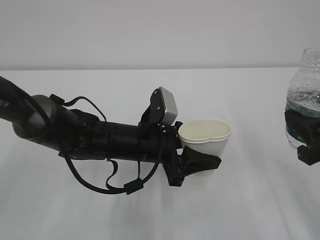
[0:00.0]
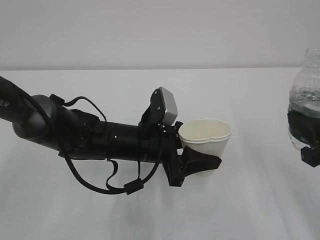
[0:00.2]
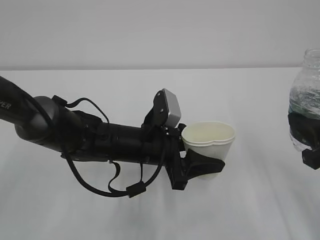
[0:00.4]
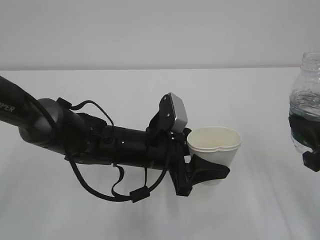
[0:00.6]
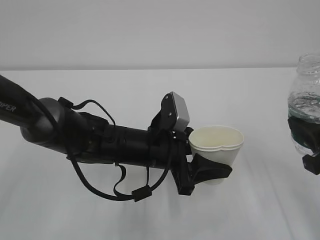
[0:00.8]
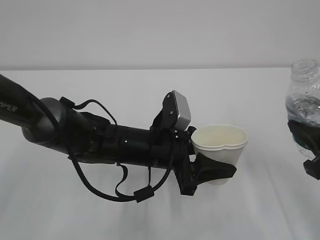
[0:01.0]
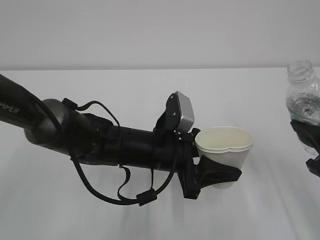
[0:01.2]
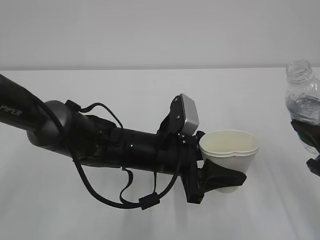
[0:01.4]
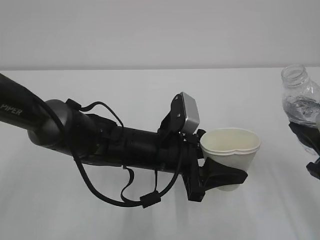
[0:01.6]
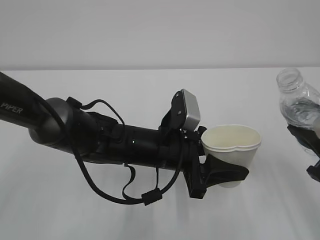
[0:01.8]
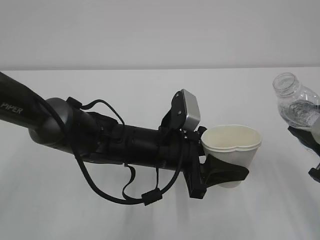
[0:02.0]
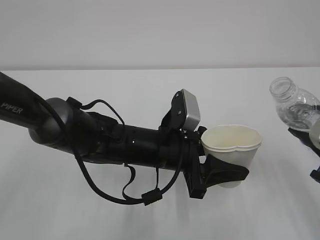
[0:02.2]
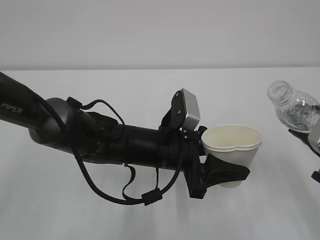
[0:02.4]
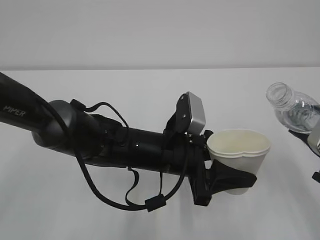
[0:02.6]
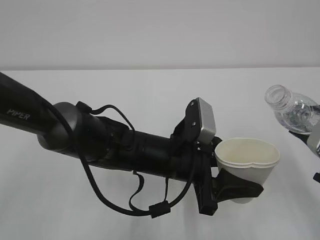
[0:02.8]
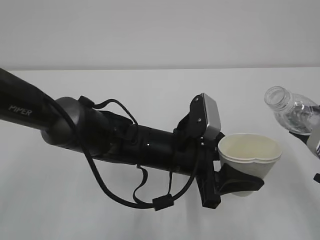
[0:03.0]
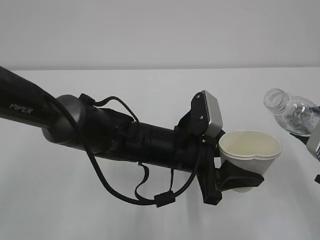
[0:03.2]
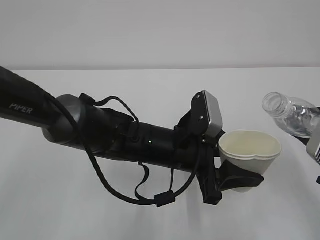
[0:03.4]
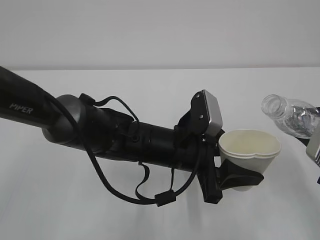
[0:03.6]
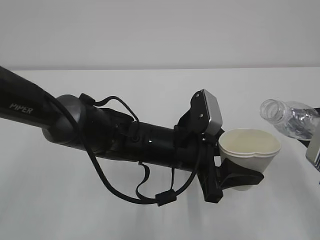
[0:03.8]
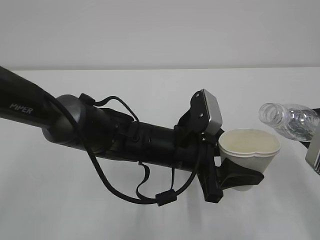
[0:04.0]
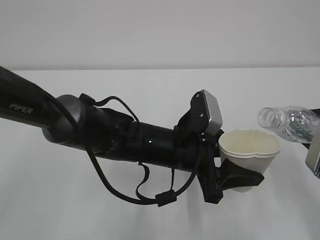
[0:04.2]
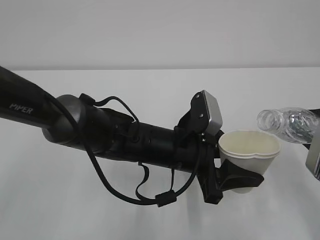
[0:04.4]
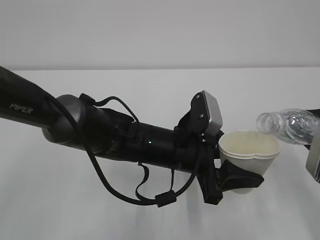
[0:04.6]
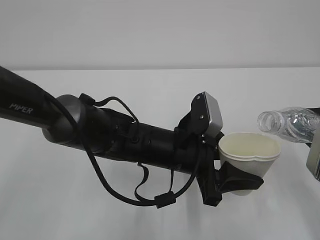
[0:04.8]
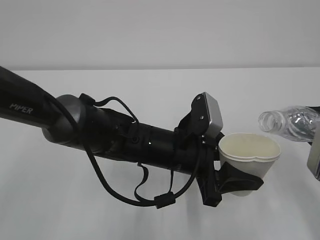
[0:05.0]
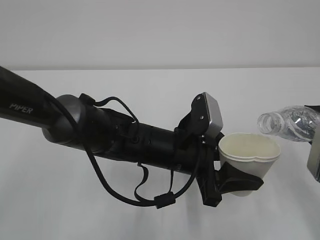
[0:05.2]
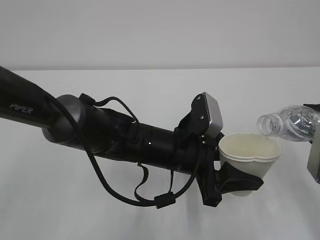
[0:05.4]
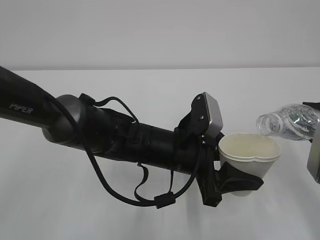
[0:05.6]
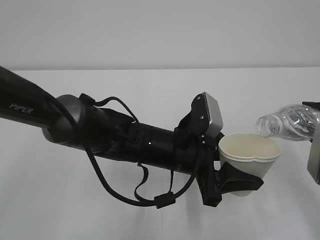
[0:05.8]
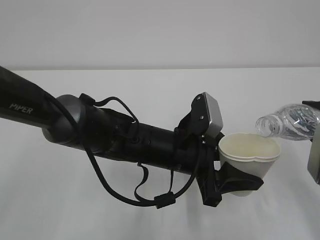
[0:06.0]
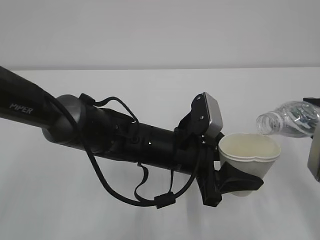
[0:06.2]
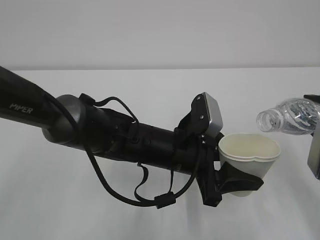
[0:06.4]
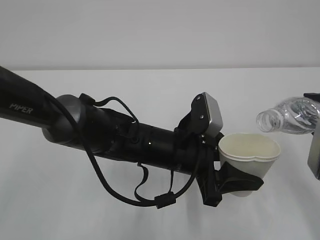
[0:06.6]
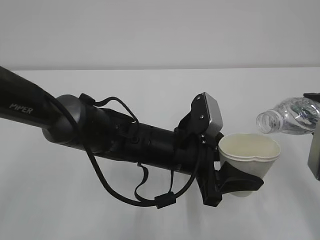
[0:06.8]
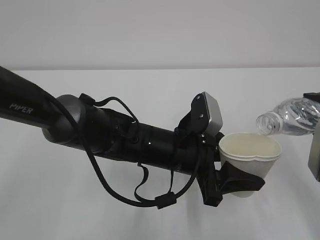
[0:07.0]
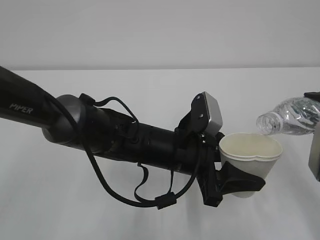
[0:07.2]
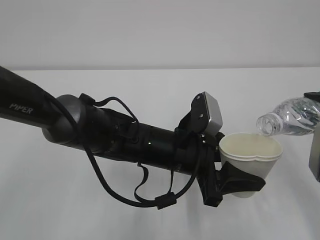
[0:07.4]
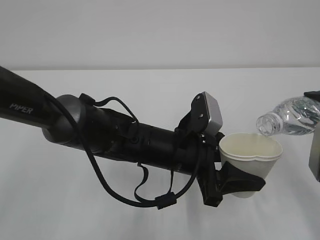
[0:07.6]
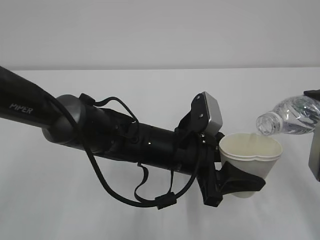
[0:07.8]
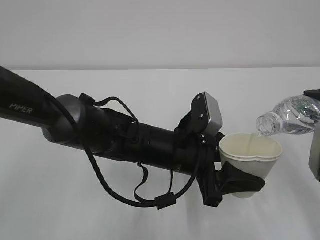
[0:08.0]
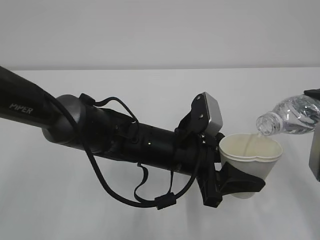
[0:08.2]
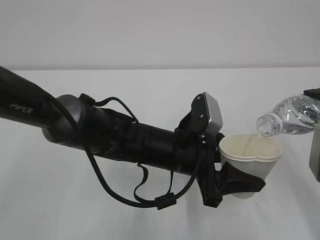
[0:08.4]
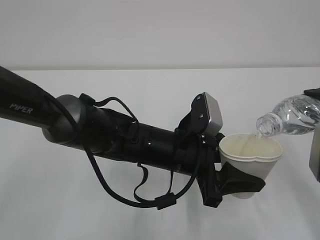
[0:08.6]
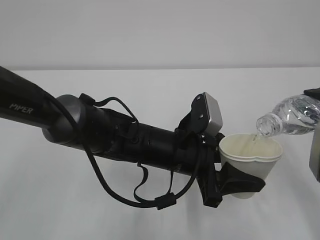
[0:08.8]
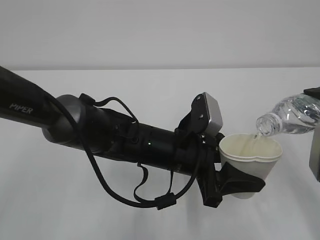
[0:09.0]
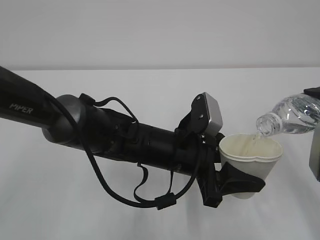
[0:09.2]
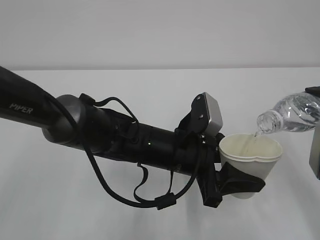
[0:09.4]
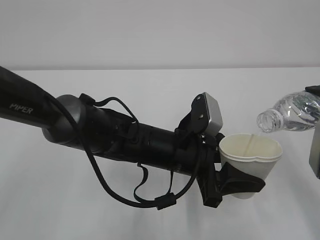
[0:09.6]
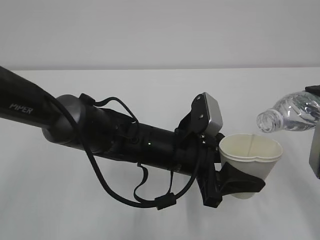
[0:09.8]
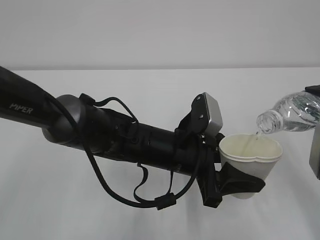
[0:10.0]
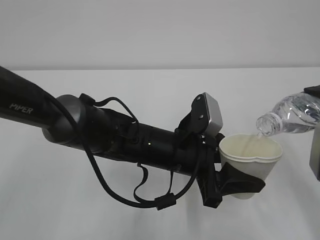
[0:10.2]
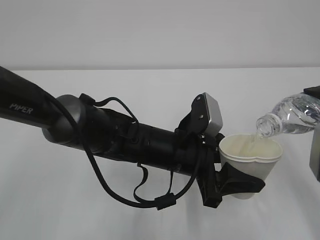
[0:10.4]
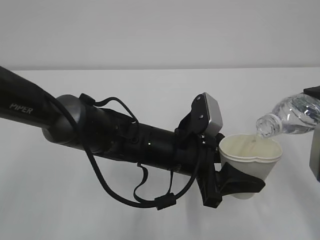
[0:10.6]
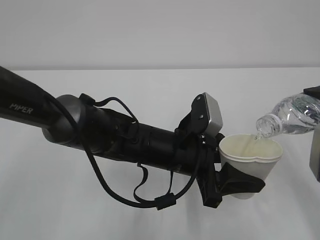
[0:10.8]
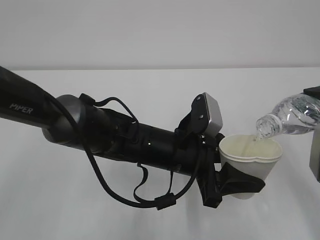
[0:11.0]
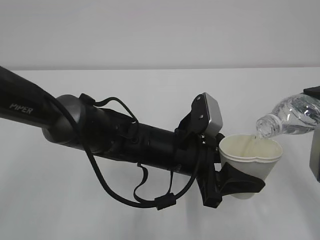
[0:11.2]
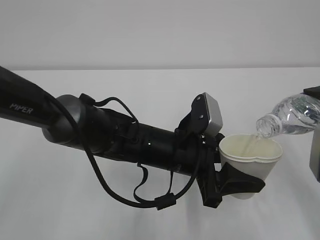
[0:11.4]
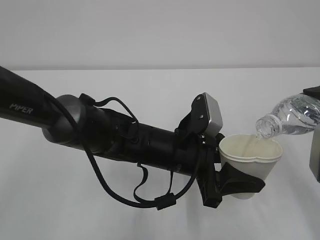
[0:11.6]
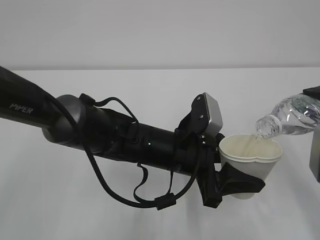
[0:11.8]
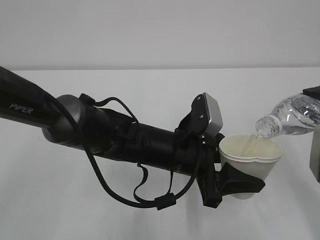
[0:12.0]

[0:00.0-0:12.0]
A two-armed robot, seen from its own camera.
0:00.0 to 0:01.6: The grippers move only a little.
0:01.6 to 0:03.0: There are only small adjustments of the grippers.
0:03.0 to 0:04.4: The grippers move only a little.
0:04.4 to 0:07.6: The grippers stay close to where they were, moving slightly.
0:07.6 to 0:12.0: Both grippers stay about where they are.

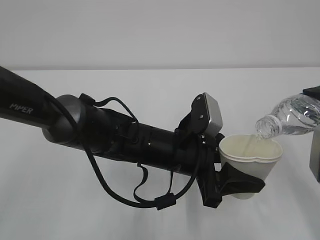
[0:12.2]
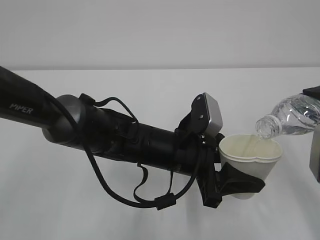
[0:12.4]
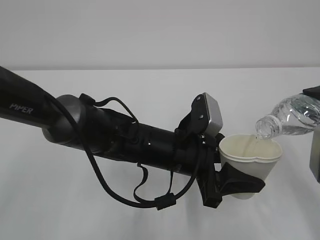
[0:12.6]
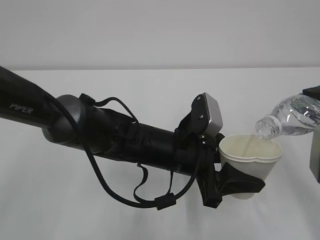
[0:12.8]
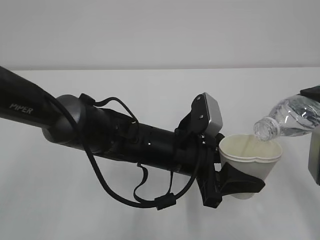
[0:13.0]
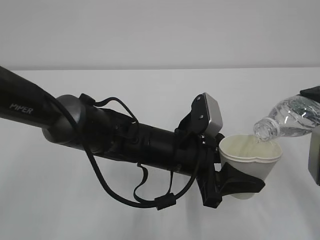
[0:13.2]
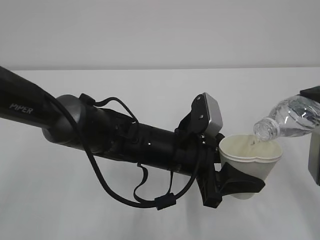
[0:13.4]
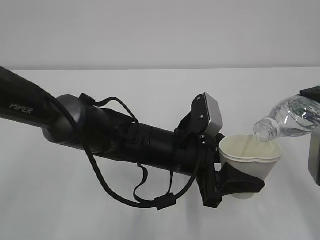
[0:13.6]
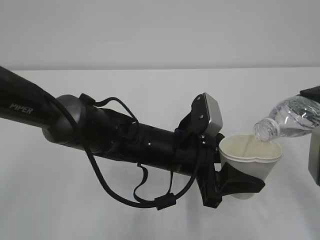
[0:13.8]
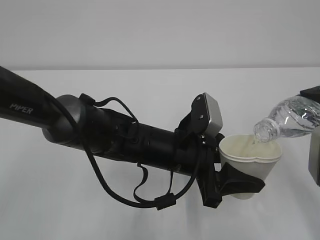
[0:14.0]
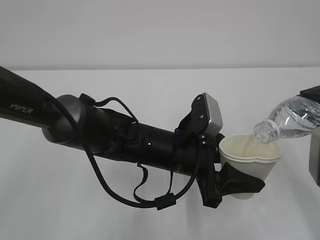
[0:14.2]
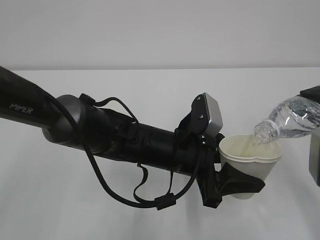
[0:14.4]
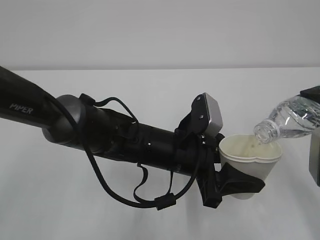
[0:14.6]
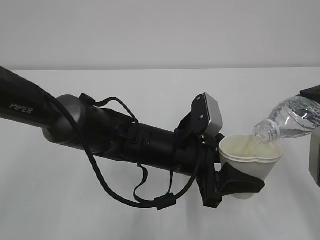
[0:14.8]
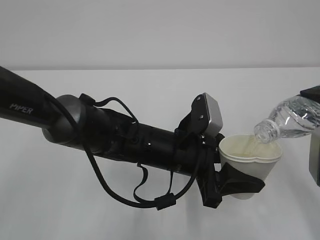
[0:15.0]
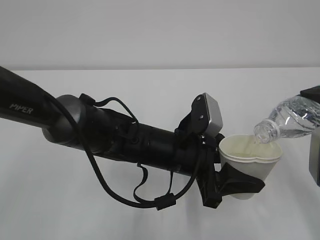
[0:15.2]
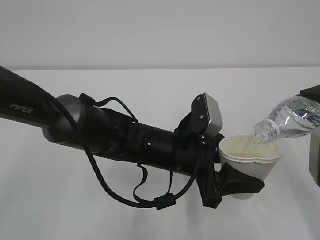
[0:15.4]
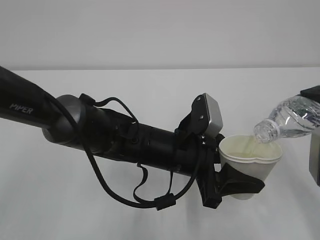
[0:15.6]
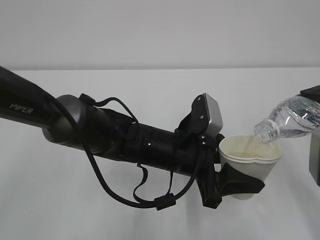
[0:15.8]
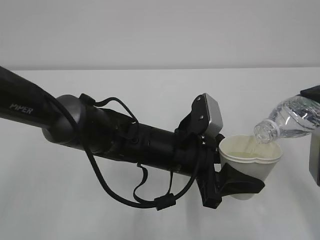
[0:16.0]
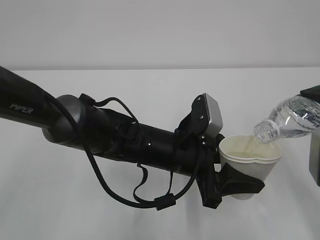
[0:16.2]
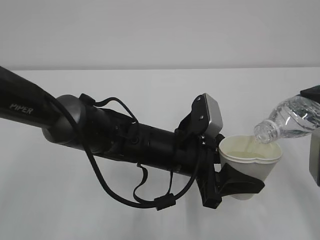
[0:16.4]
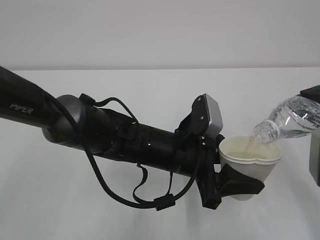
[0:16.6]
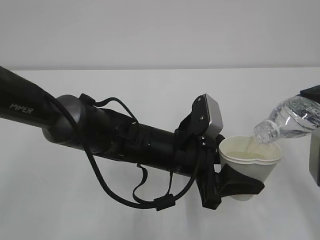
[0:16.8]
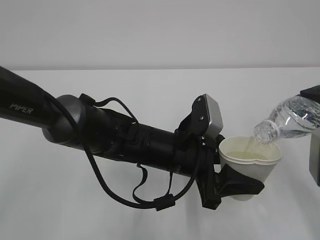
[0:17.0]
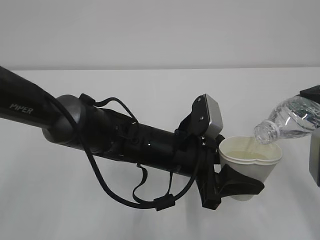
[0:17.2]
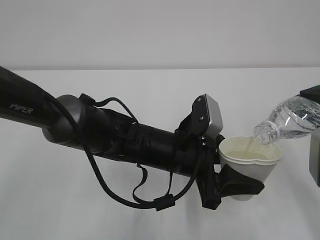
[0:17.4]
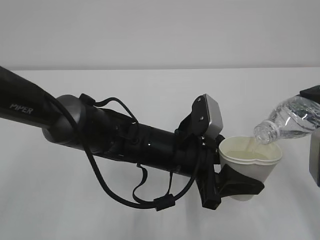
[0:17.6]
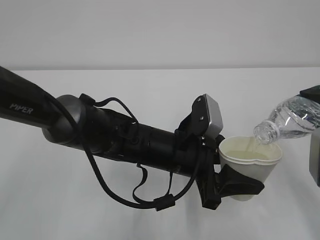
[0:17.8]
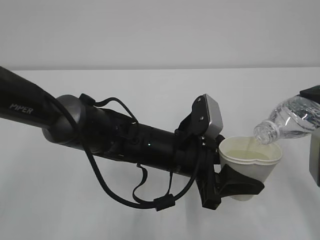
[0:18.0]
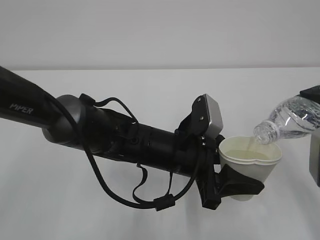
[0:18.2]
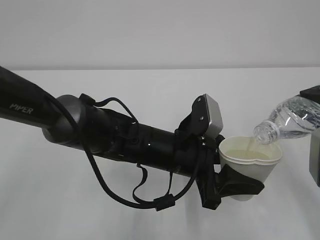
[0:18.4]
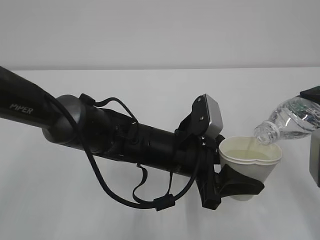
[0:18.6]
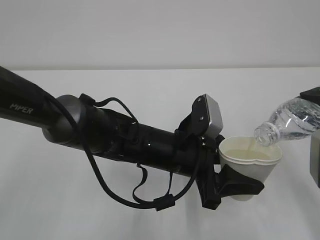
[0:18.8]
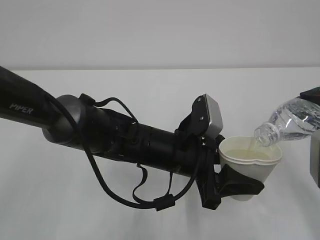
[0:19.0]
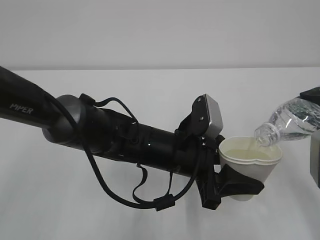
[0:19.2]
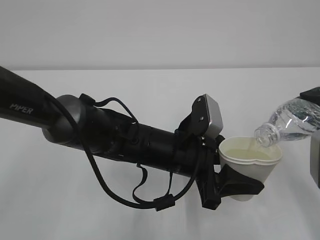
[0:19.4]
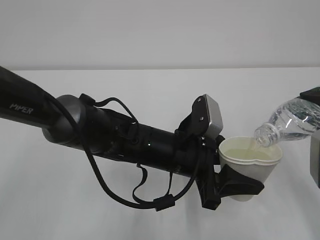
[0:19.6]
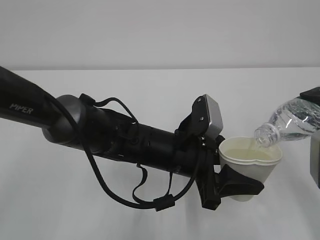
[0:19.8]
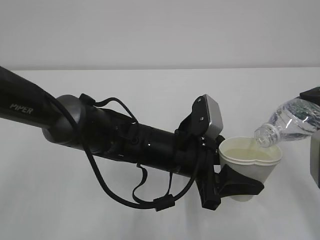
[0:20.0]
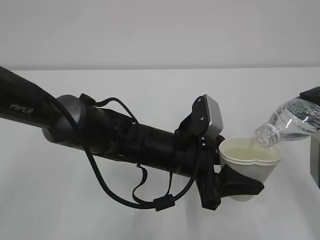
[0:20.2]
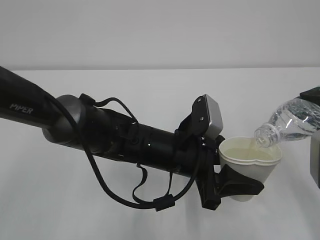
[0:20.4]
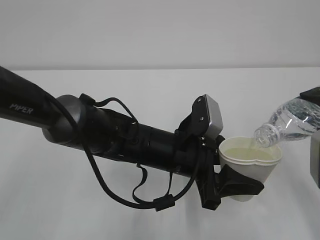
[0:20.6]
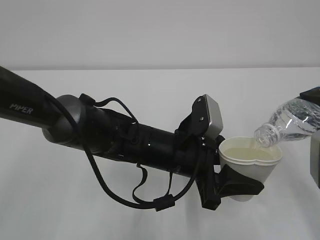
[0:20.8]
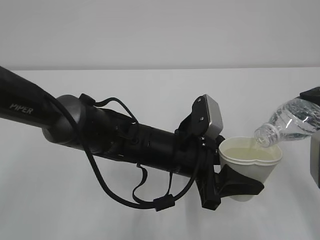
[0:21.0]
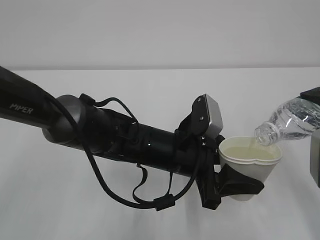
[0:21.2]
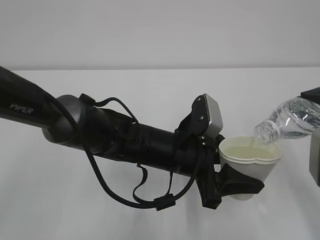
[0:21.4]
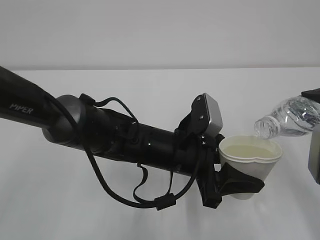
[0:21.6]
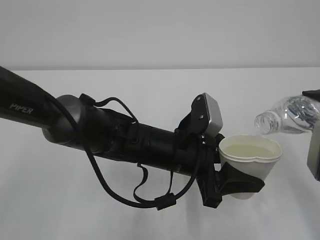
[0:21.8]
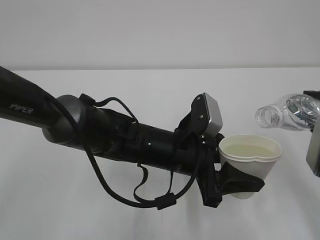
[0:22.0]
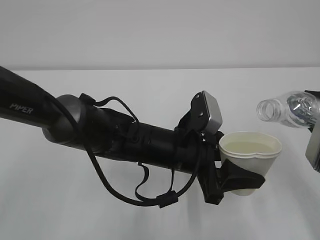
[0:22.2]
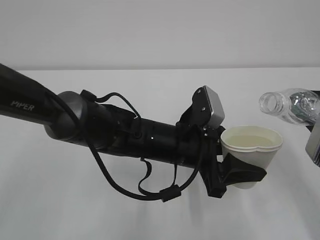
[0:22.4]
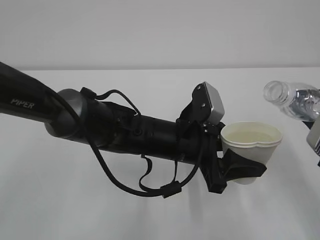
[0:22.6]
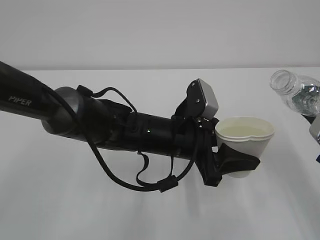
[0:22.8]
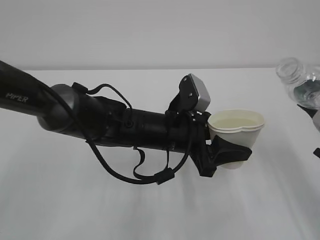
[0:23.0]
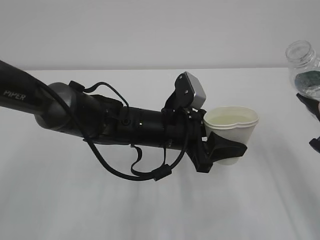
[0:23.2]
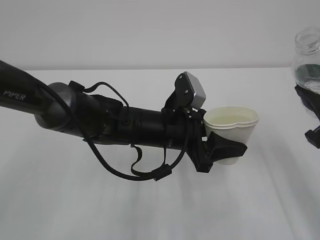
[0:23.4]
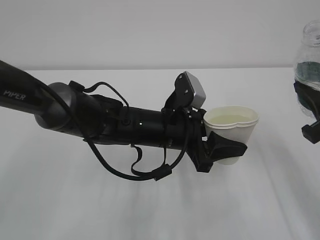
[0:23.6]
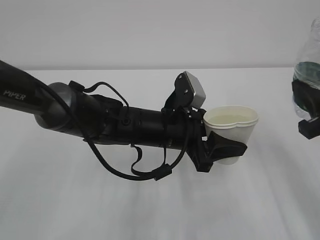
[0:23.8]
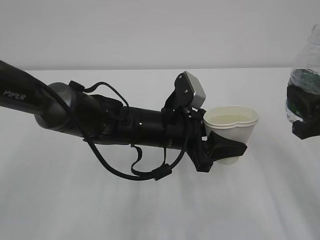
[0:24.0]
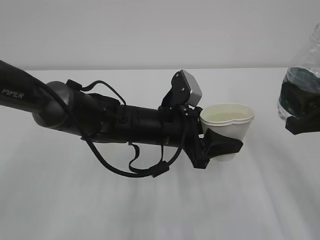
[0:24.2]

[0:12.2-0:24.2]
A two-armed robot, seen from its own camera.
0:12.2 to 0:18.2: Both grippers stay put.
0:18.2 to 0:21.2: Both grippers stay about where they are.
